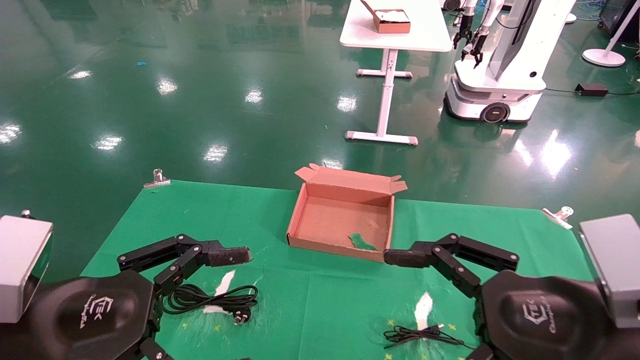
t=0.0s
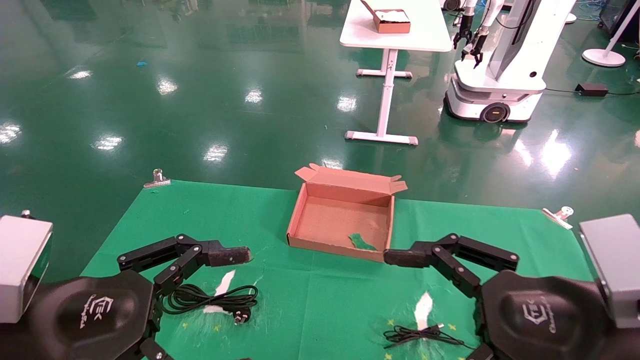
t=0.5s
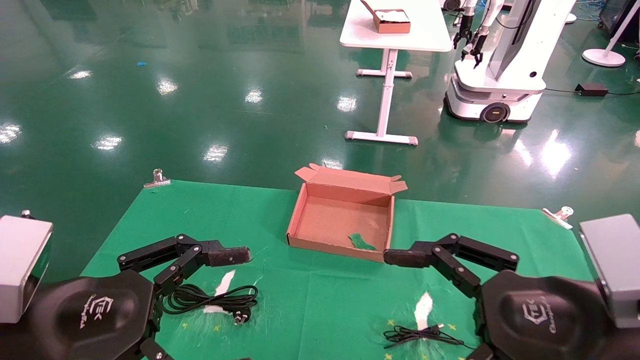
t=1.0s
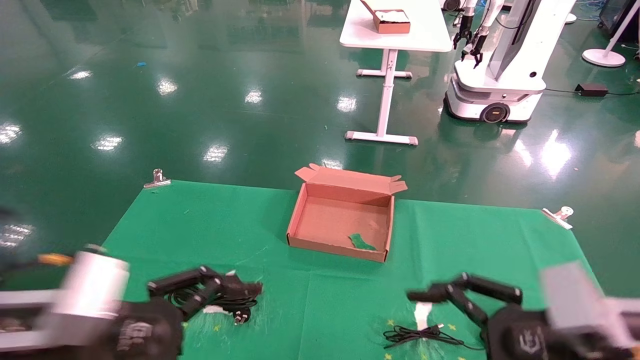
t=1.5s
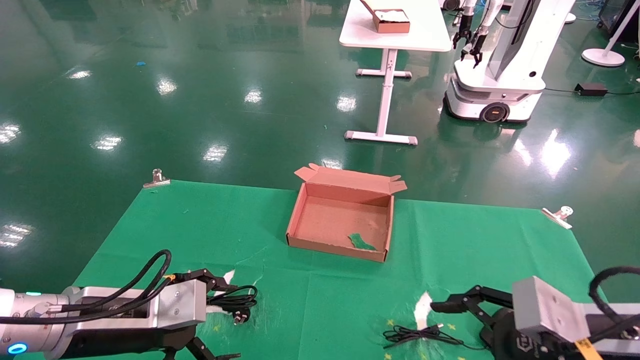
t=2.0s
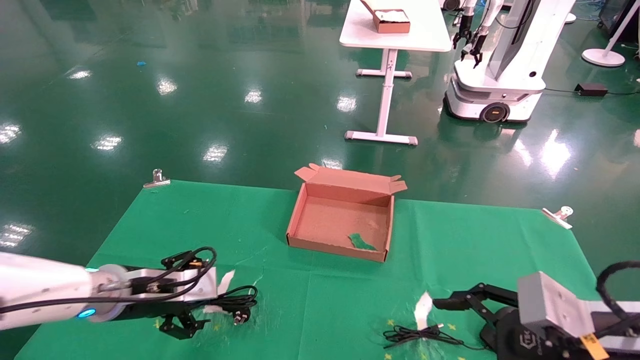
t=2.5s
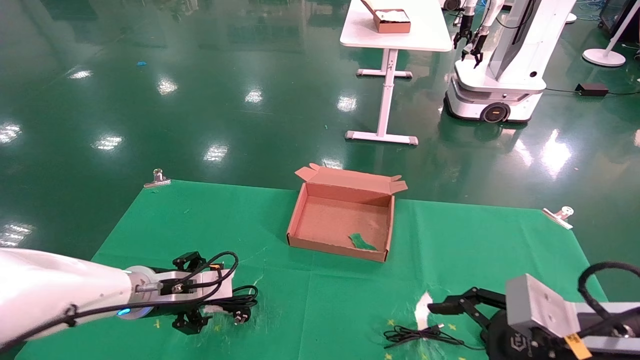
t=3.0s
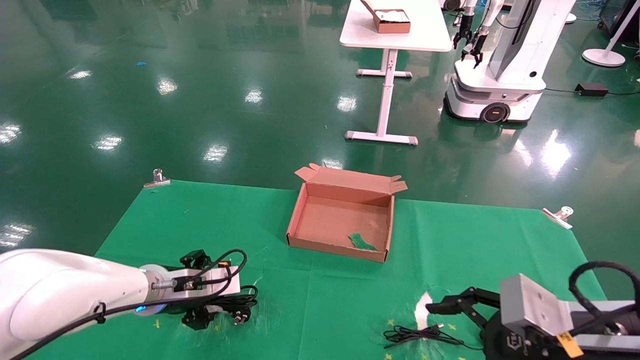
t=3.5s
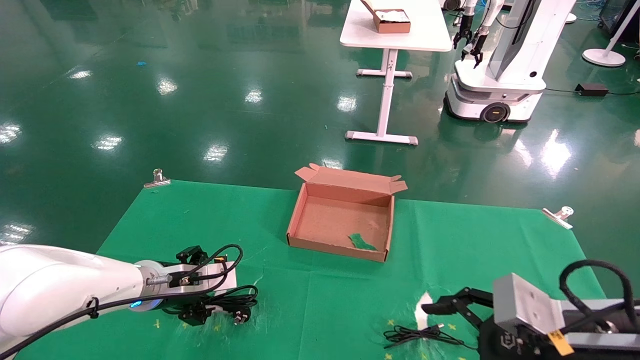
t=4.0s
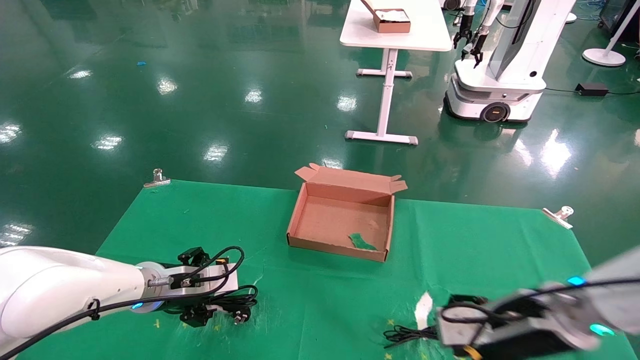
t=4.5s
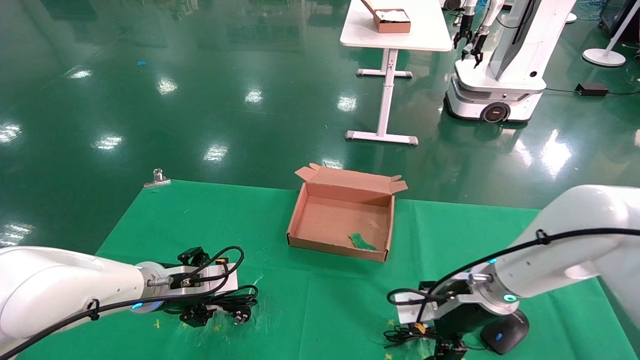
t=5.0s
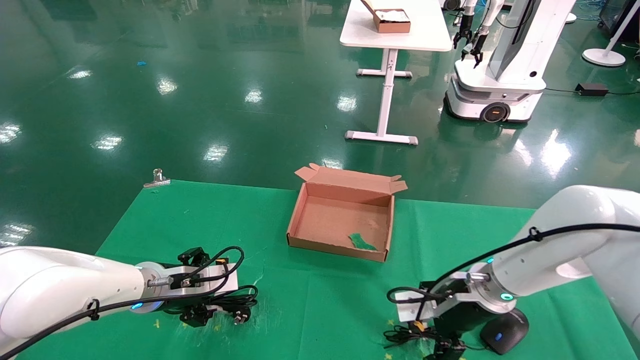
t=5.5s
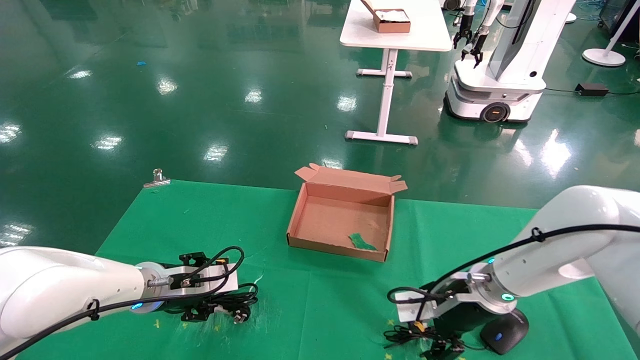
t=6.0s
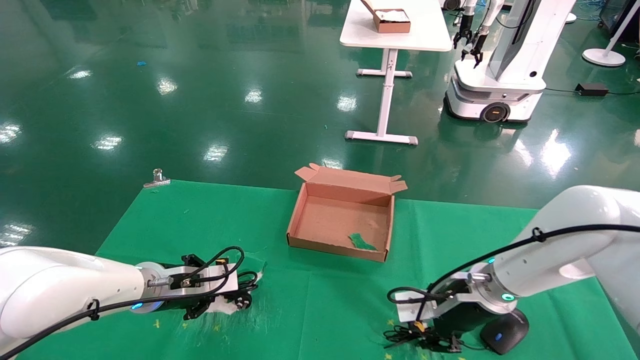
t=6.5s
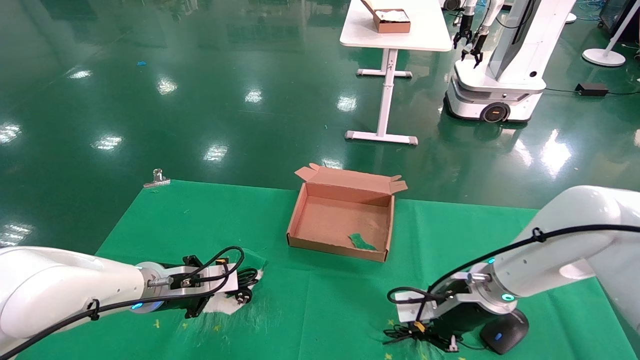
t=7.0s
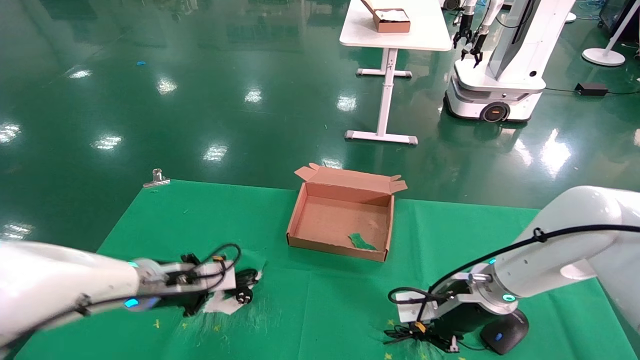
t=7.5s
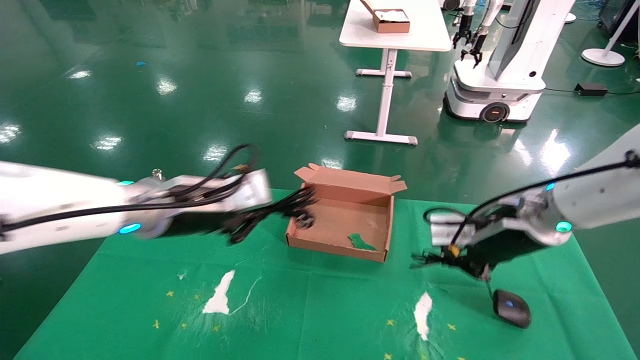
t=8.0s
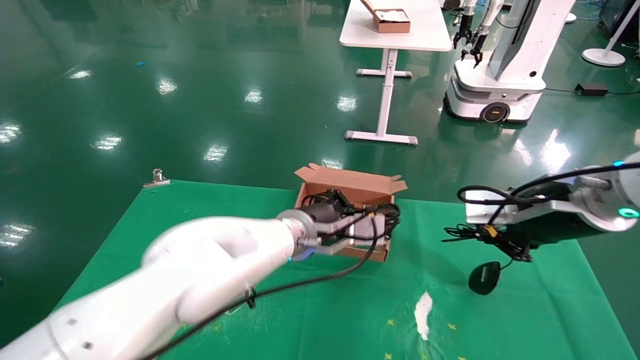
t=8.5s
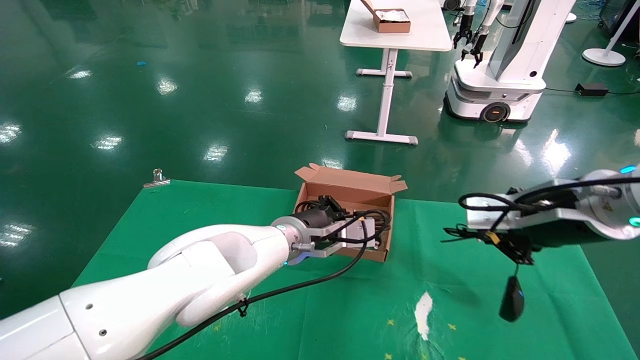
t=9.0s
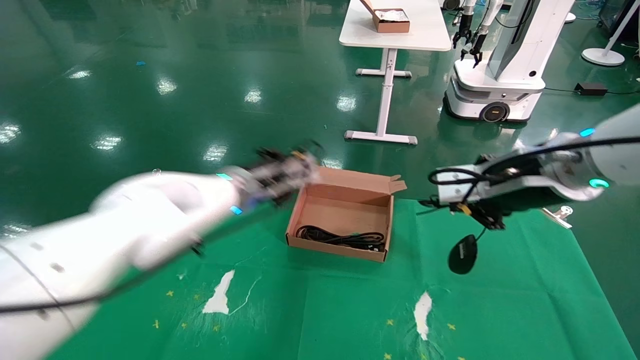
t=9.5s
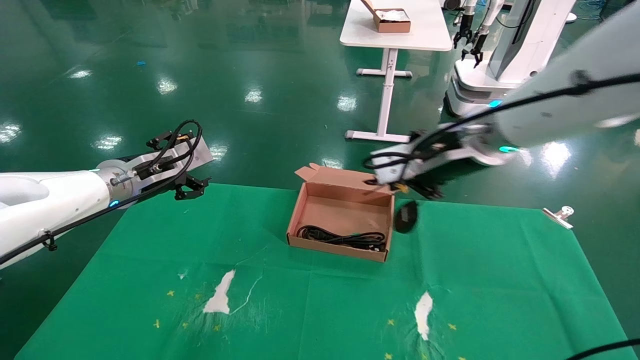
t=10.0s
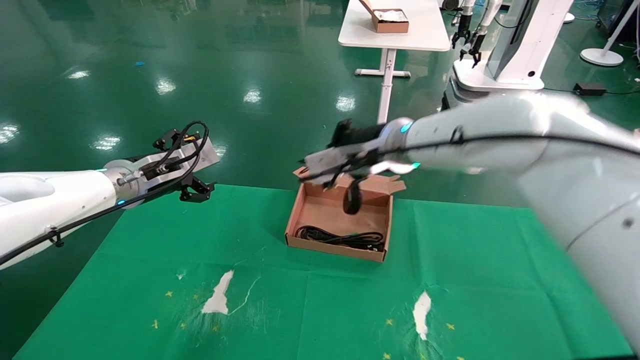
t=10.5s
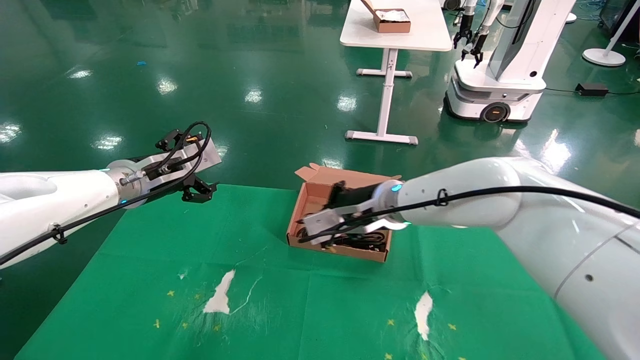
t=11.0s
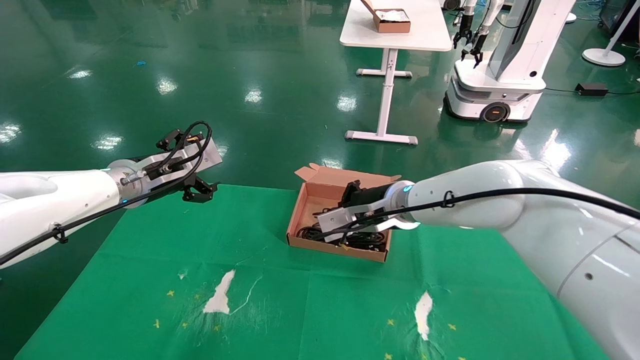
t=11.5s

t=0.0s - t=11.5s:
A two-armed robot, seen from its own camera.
Step, t=2.0s - t=7.5s: Grab and lift both the mouse and power cord from the accessory packaging area at the same time.
t=0.0s - t=2.0s: The left gripper moves forward and downward, approximately 15 cm. The right gripper goes about 5 cm downward.
t=2.0s - t=4.0s: The left gripper moves forward, roughly 10 cm.
t=4.0s - t=6.0s: The right gripper moves forward, roughly 15 cm.
t=6.0s - t=7.5s: The right gripper closes. Meanwhile the left gripper closes.
t=7.5s - t=9.5s: The right gripper moves upward, some 20 cm. Meanwhile the left gripper shifts roughly 15 cm to the right, upward and forward.
t=9.5s - t=11.5s: The left gripper shifts about 10 cm to the left, and opens its fingers, while the right gripper is displaced to the left, forward and downward by about 20 cm.

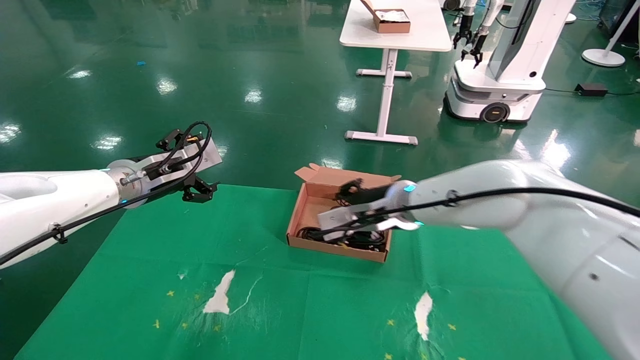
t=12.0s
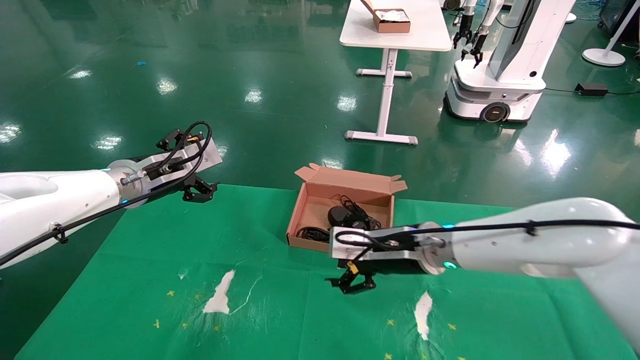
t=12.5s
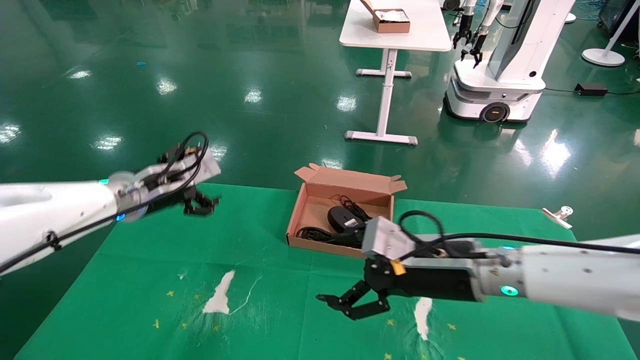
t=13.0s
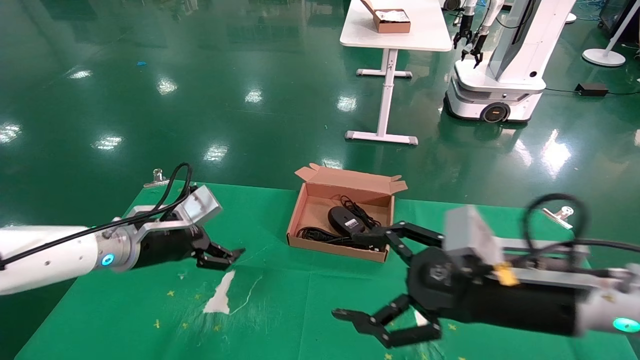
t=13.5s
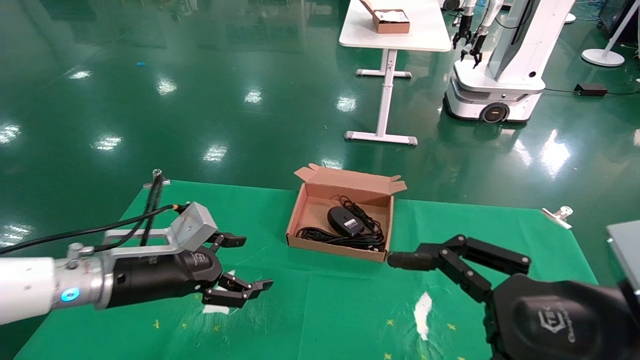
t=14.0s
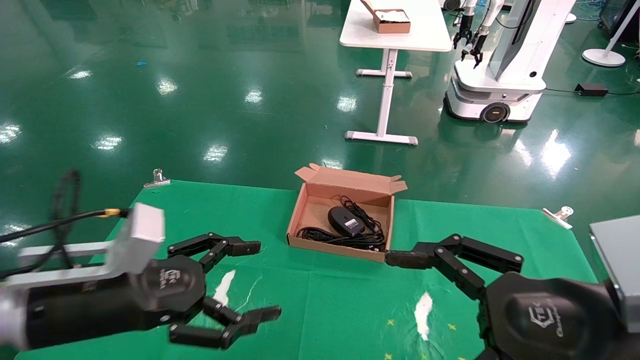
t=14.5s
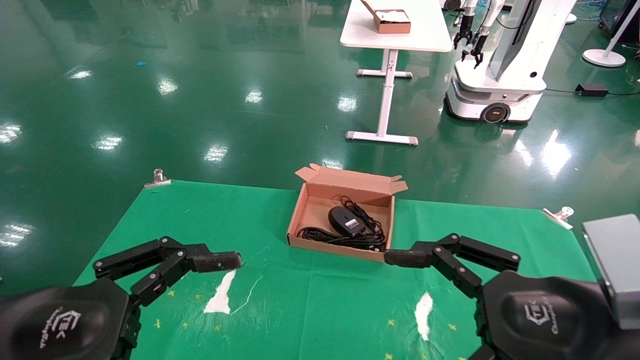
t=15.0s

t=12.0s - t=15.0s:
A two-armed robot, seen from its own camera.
t=12.0s - t=13.5s: The right gripper shifts about 20 cm backward and to the right, and opens its fingers. The left gripper is displaced downward by approximately 10 cm.
t=13.5s - t=15.0s: The right gripper heads backward, covering roughly 10 cm. The left gripper shifts roughly 25 cm backward.

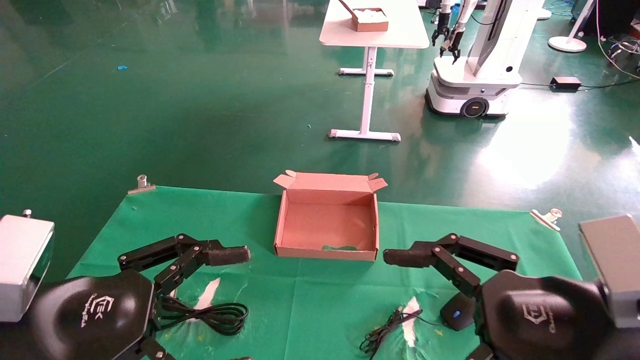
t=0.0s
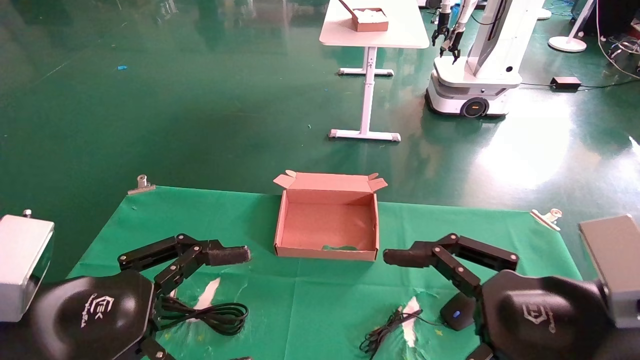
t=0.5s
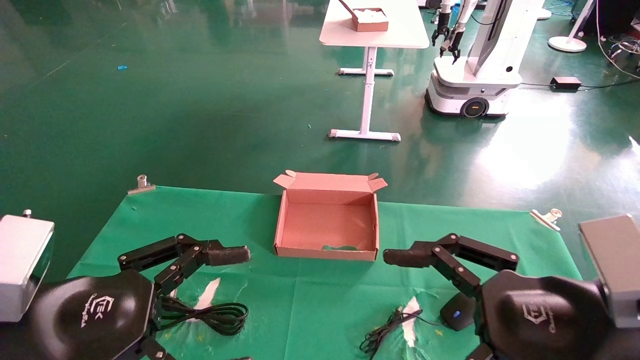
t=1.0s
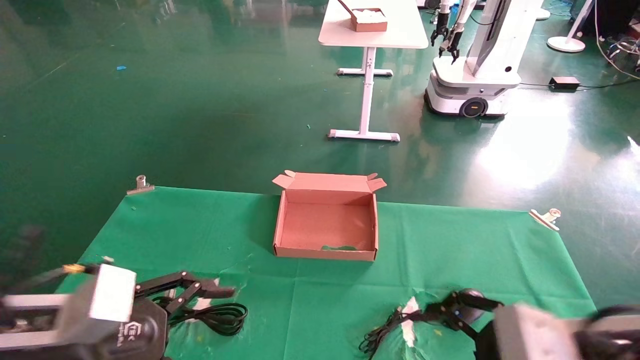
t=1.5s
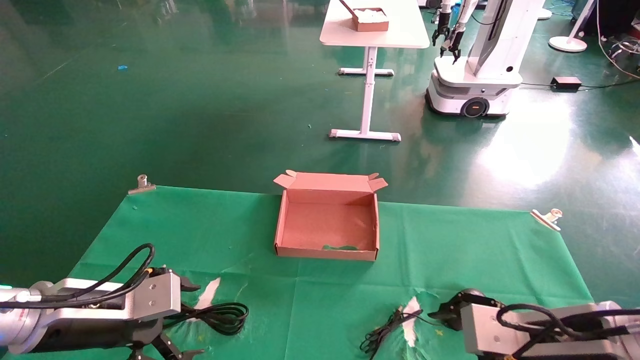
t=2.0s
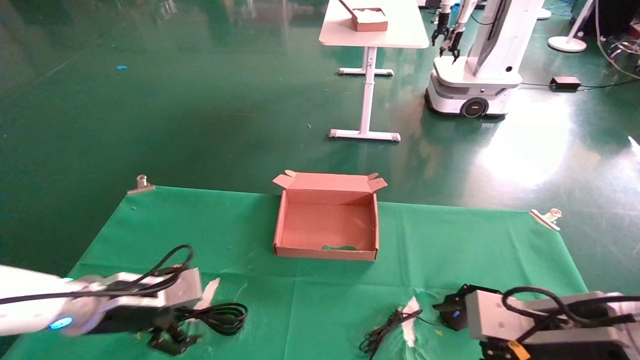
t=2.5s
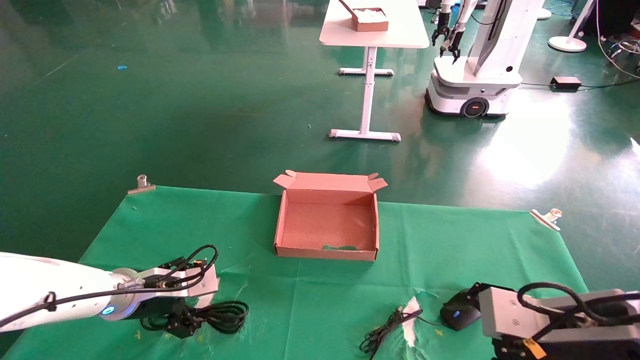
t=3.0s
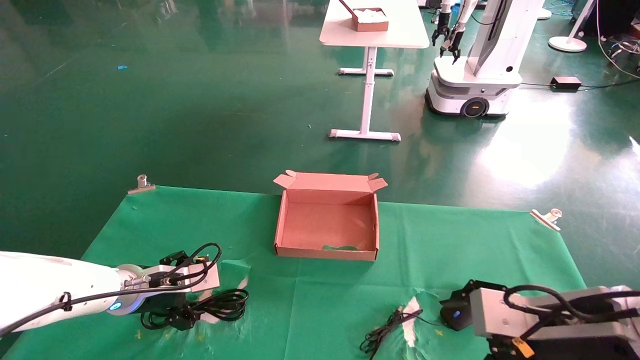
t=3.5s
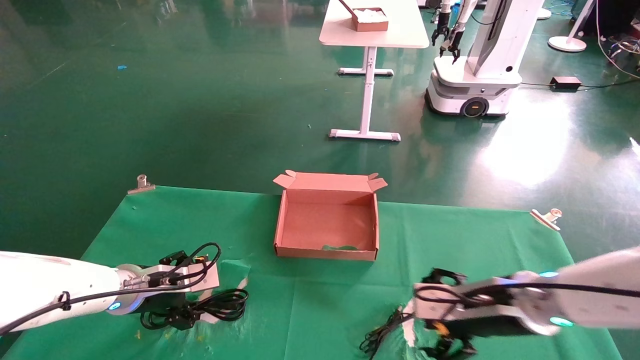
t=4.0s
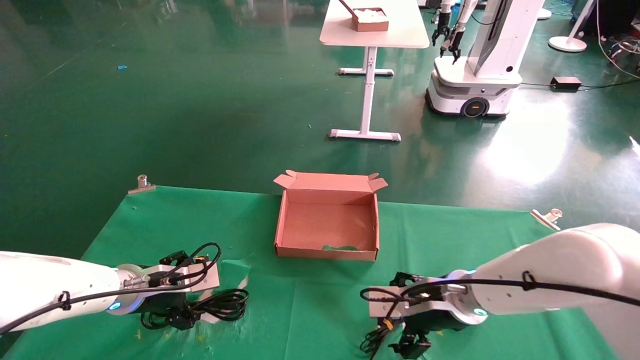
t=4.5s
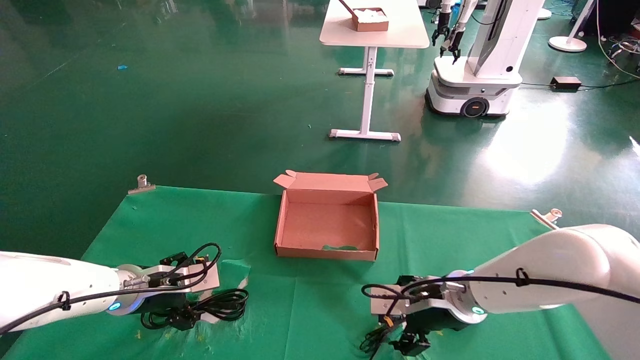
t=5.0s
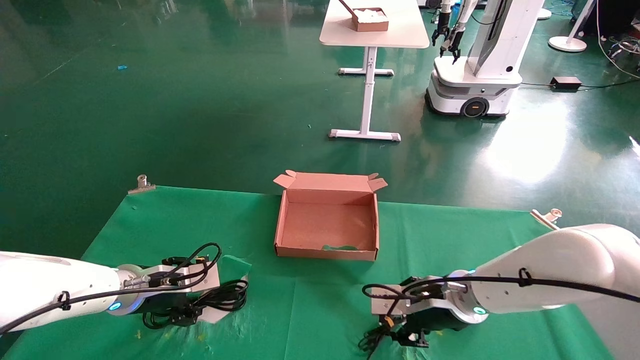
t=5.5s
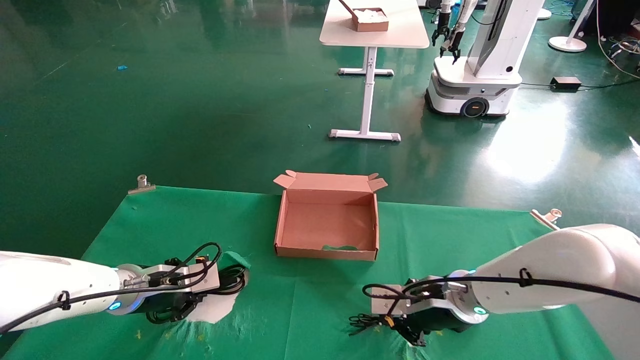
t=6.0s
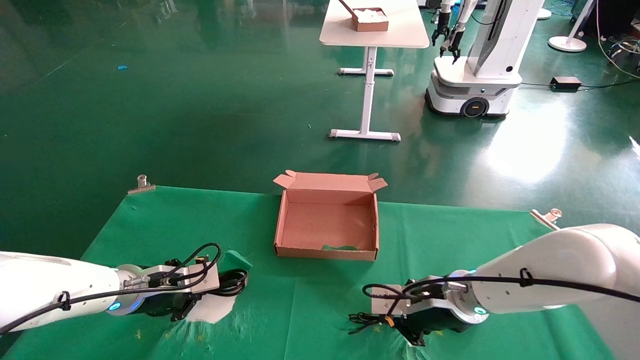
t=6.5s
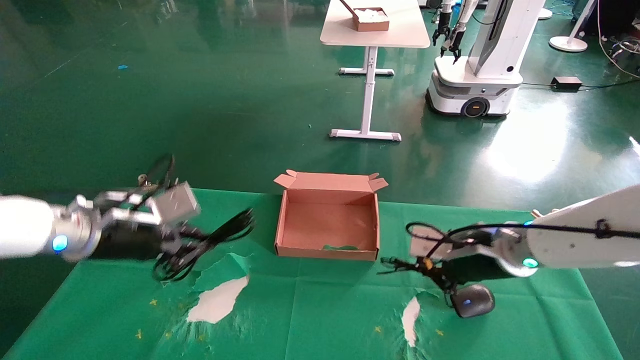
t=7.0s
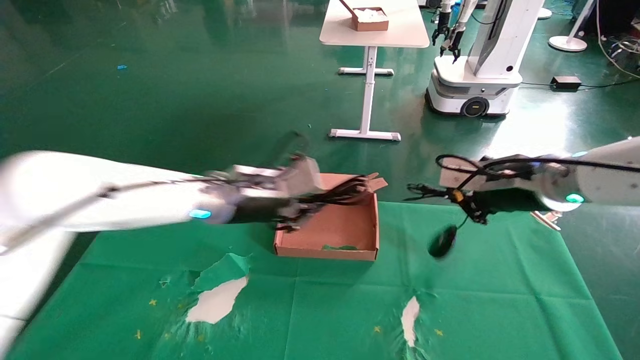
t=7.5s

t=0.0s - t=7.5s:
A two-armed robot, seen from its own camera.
Step, t=2.0s - t=5.5s: Grab and lift both the mouse and power cord from the accessory packaging area at the same time.
t=0.0s - t=2.0s: The two grippers go some 10 cm forward and downward.
t=2.0s - t=4.0s: The grippers both shift forward by some 10 cm.
t=4.0s - t=5.5s: The right gripper moves forward and to the left, roughly 10 cm, and closes.
t=5.5s - t=7.5s: The right gripper moves upward and to the right, some 20 cm, and closes its fingers; the left gripper goes about 20 cm to the right and upward, and closes its fingers.
